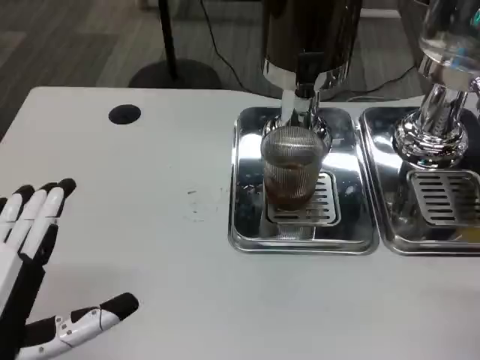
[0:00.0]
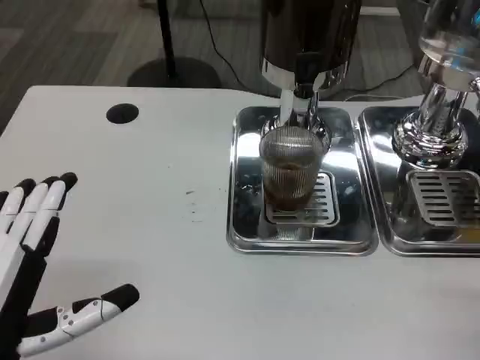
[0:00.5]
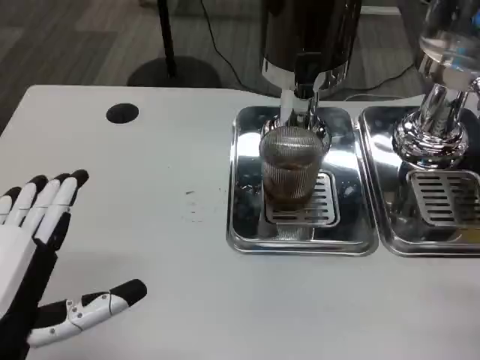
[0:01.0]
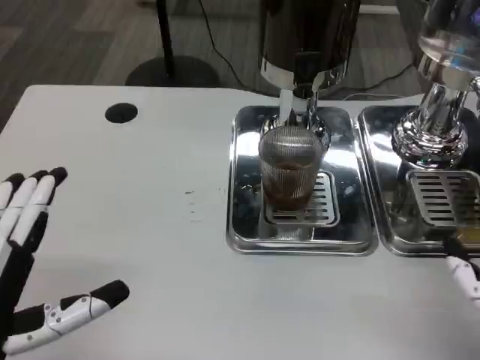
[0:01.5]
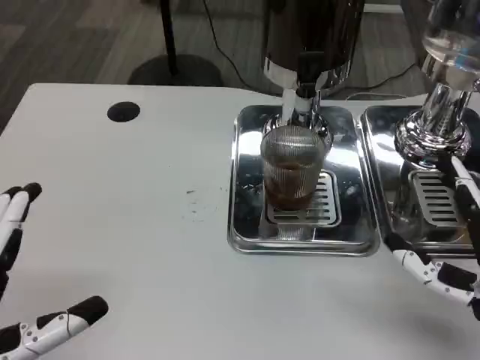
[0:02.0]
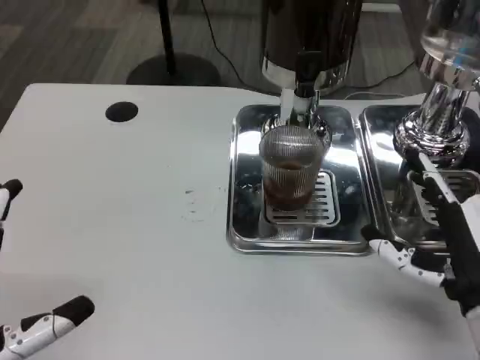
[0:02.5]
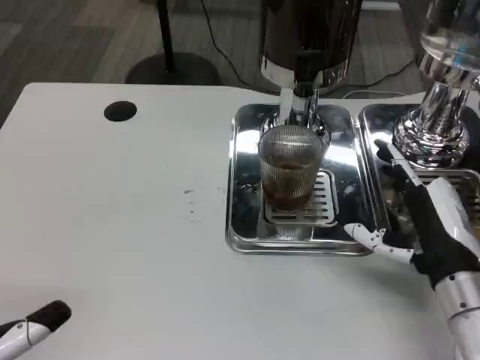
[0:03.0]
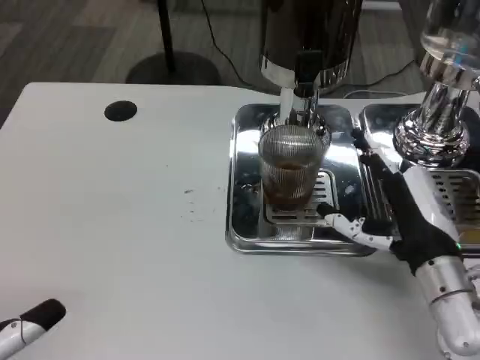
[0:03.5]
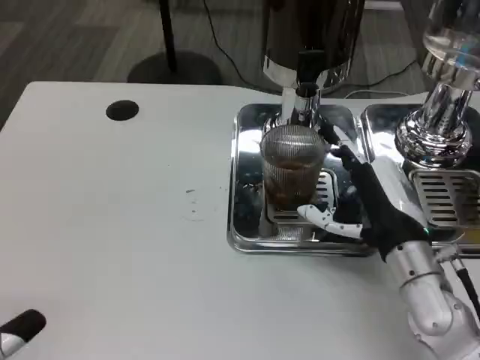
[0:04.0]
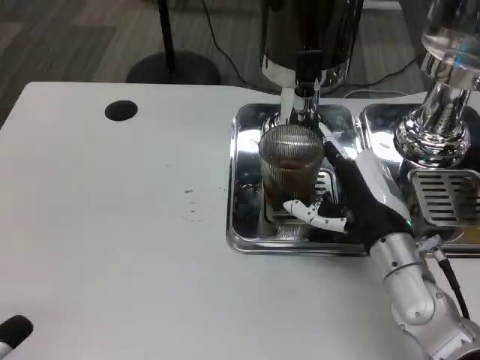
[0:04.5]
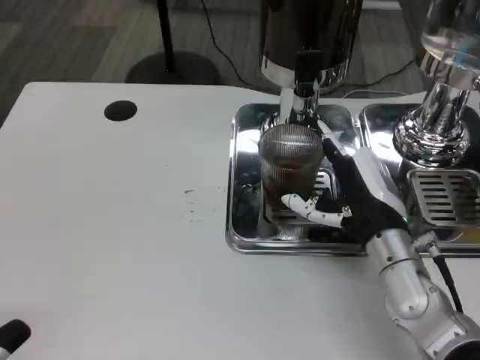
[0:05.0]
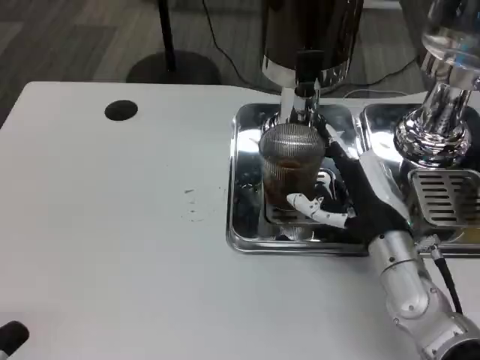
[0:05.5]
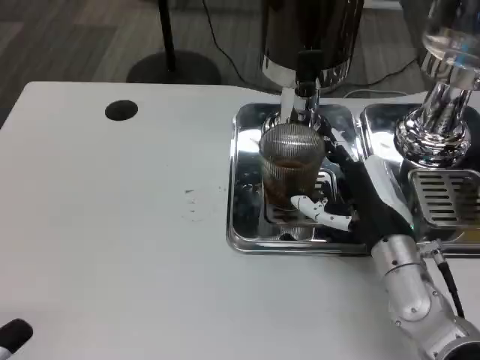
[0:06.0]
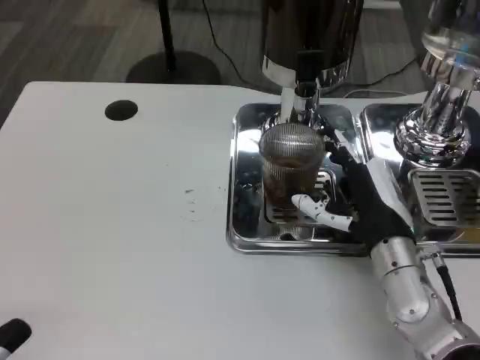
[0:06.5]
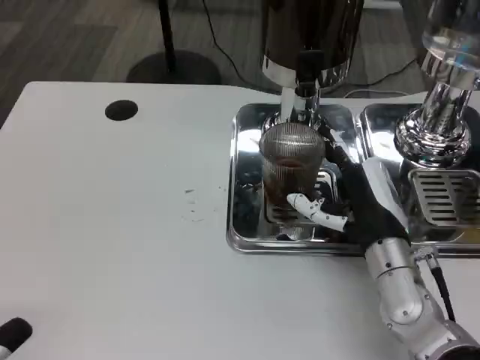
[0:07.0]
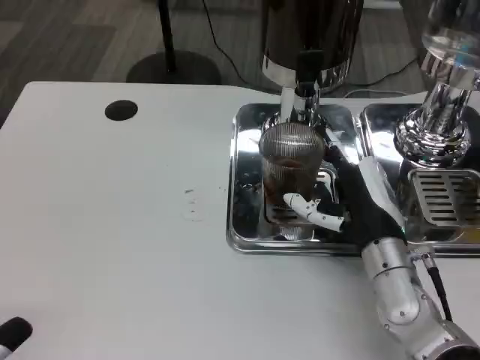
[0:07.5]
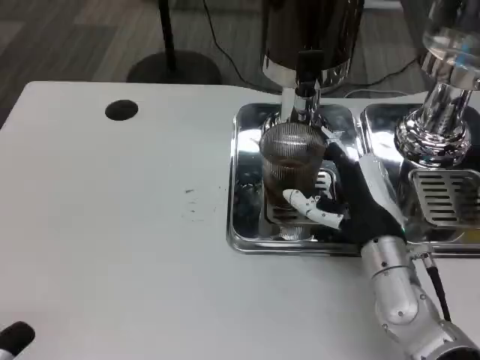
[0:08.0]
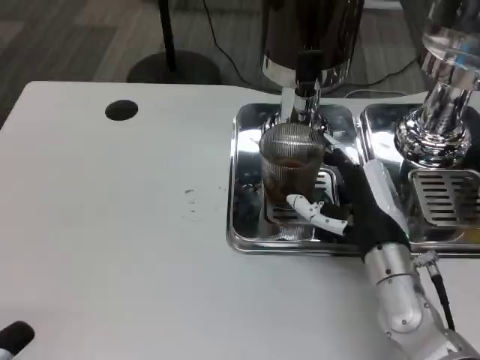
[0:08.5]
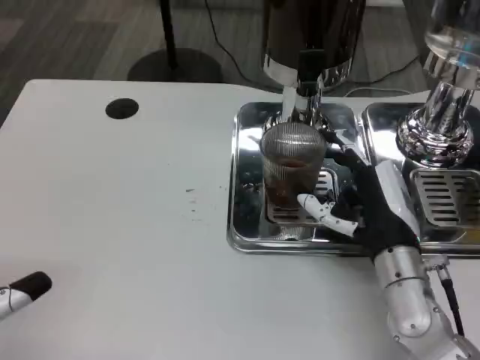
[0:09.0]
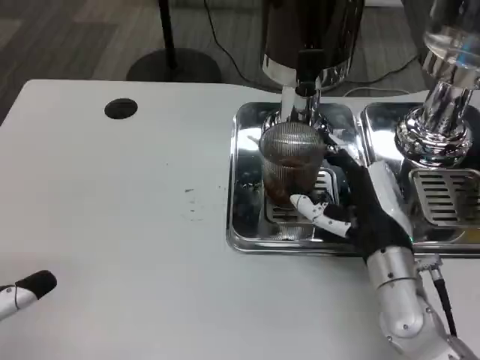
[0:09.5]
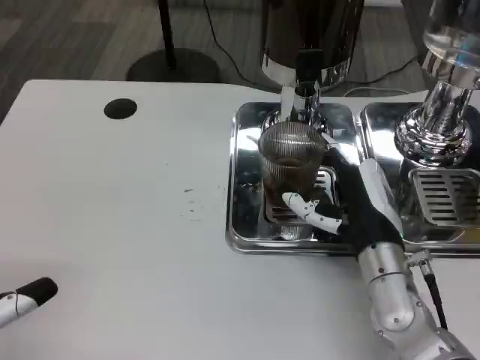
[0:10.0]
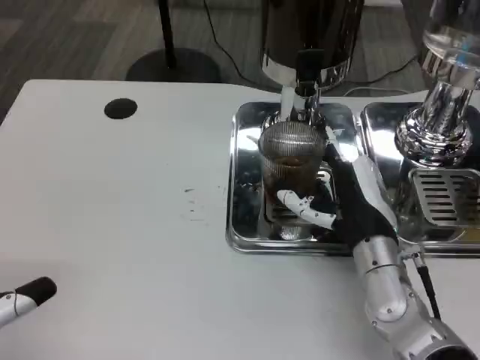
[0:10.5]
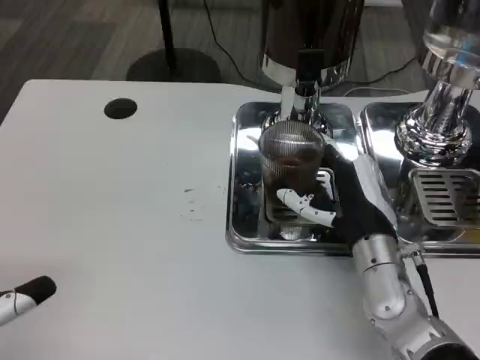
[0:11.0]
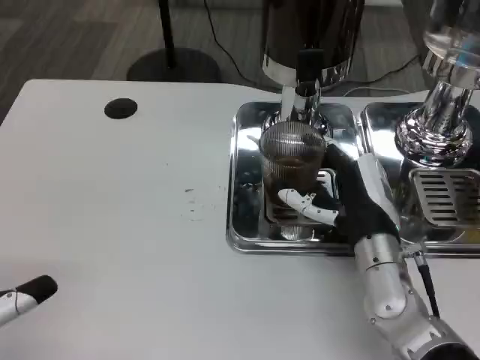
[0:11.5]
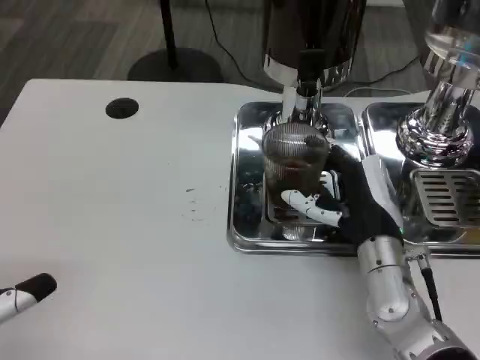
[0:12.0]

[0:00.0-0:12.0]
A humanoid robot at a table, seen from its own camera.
Task of the whole recording: Grasp the cup under the faucet to collect the drink, then remove the cup.
0:00.0 to 0:02.0: The right hand travels forward by about 10 cm.
0:02.0 to 0:04.0: The right hand goes roughly 10 cm forward and to the left.
0:04.0 to 0:08.0: The hands make only small movements.
0:08.0 to 0:10.0: The left hand shifts some 5 cm forward.
0:10.0 to 0:12.0: Both hands stay about where they are.

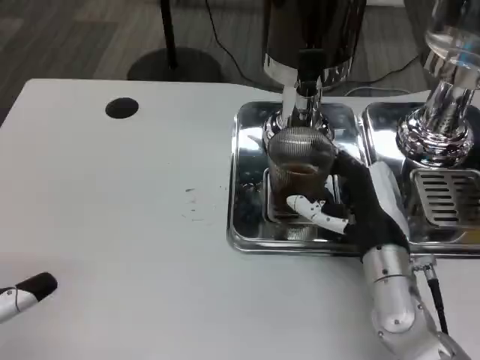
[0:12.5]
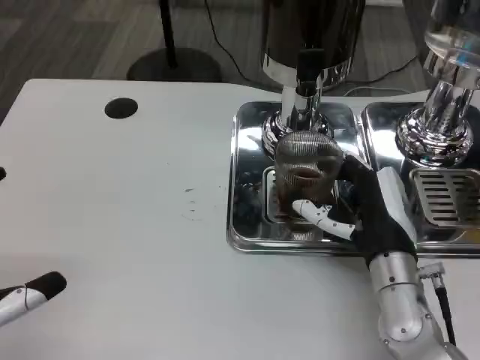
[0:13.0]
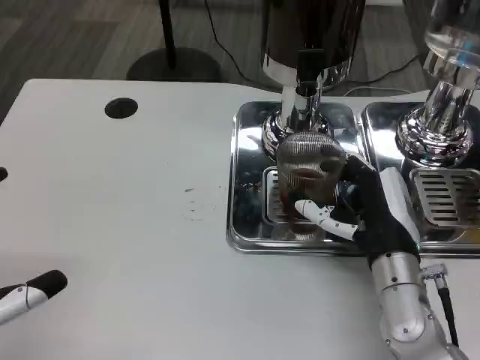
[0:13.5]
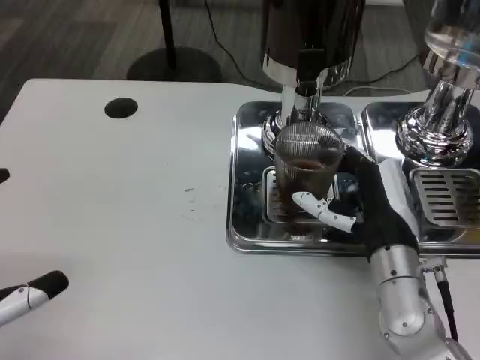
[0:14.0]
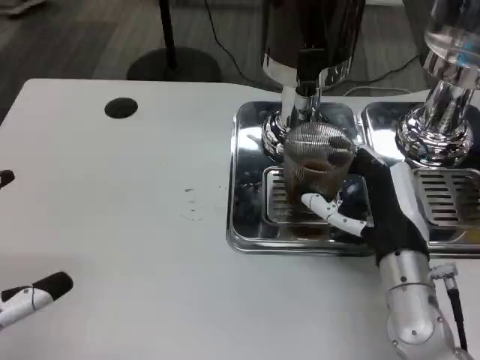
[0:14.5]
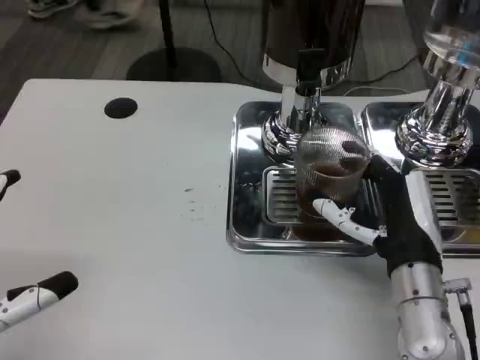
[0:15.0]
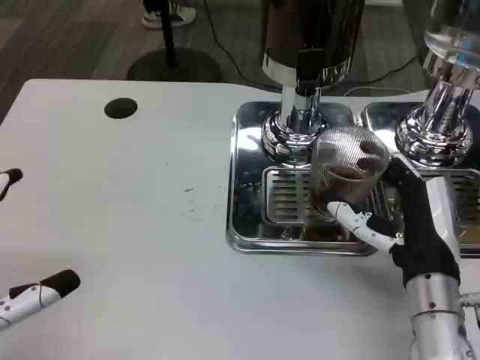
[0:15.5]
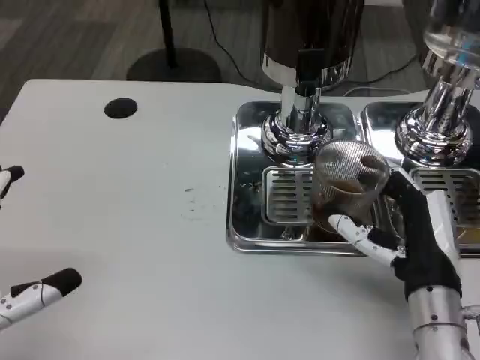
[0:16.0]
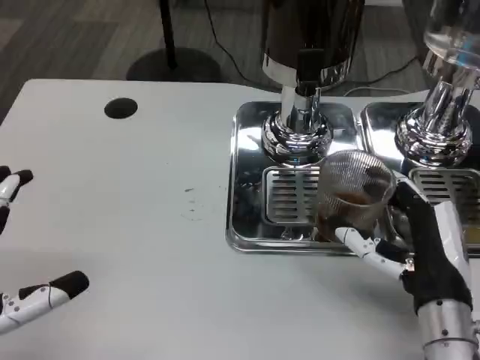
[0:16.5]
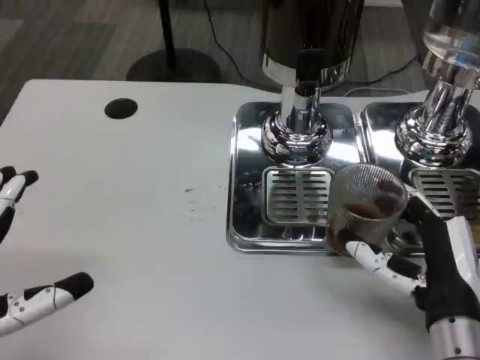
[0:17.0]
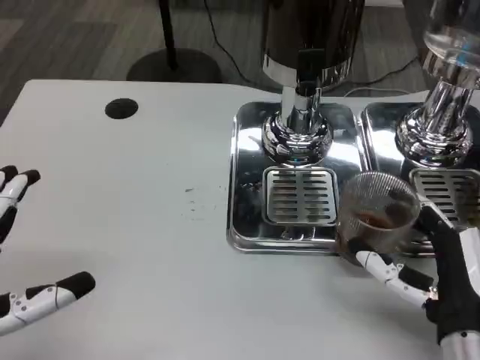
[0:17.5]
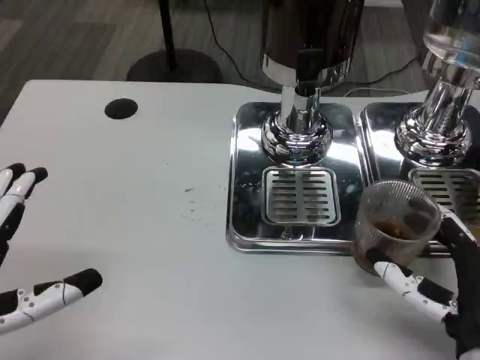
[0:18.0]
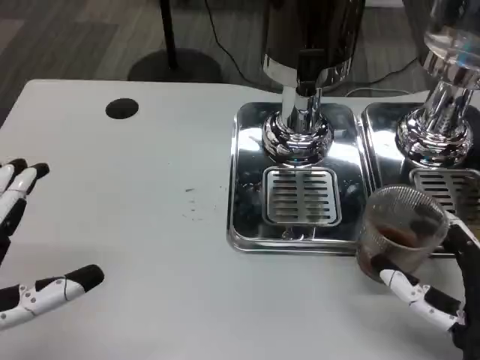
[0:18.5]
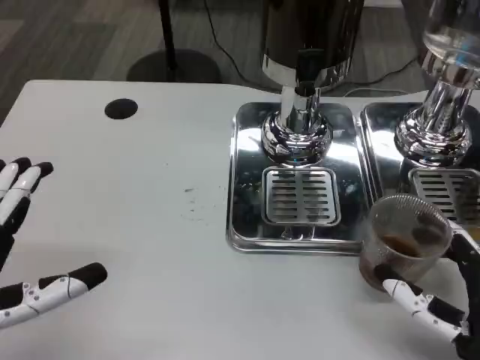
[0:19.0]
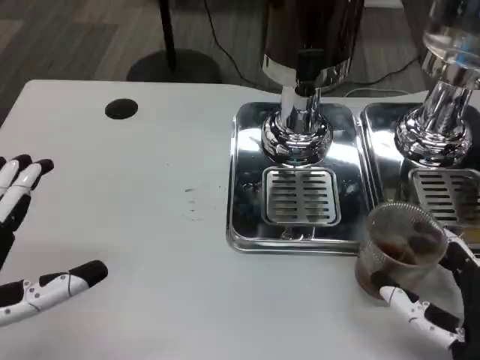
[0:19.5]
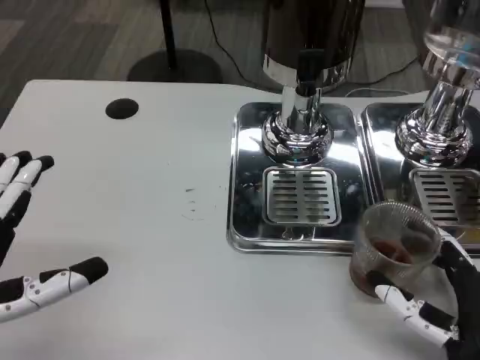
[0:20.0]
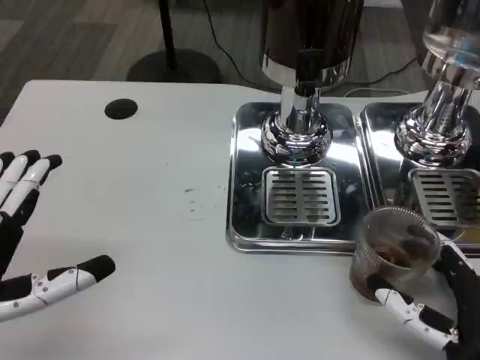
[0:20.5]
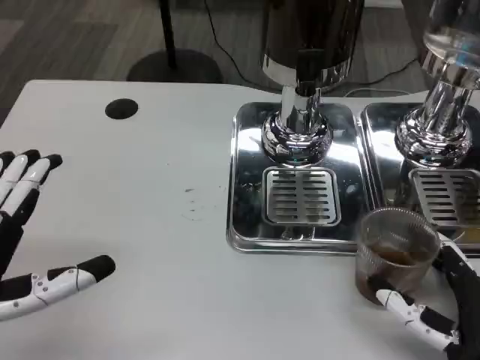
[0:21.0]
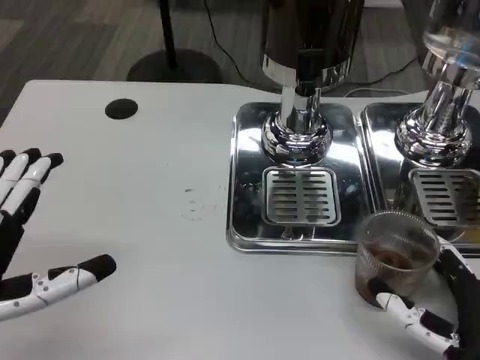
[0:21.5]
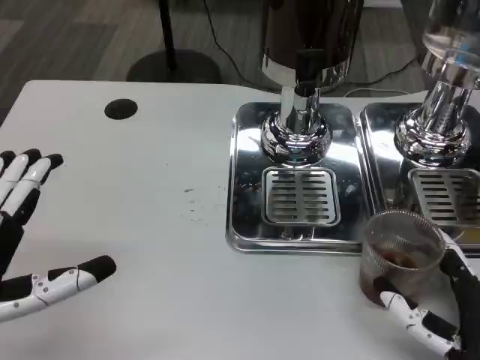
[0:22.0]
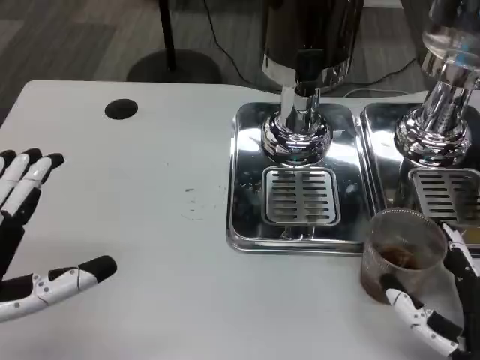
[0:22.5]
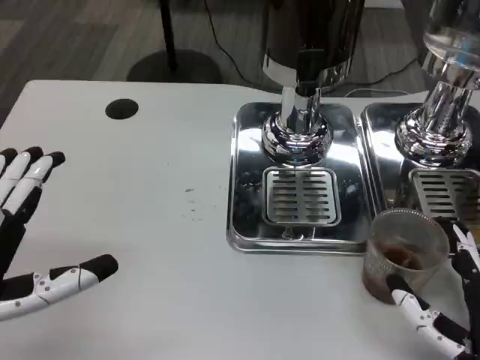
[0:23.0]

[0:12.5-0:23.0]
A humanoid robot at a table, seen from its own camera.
Task of the whole recording: Grasp the cup under the faucet to collect the drink, then remove the cup.
0:12.5 to 0:14.5: The hands move only a little.
0:14.5 to 0:16.5: The right hand is displaced backward by approximately 5 cm.
0:16.5 to 0:19.0: The right hand shifts some 5 cm backward.
0:19.0 to 0:21.0: There are only small adjustments of the hands.
0:21.0 to 0:23.0: Neither hand changes place.

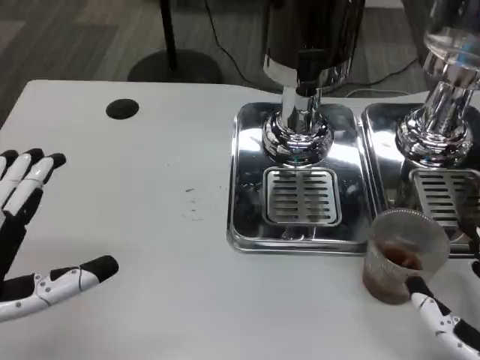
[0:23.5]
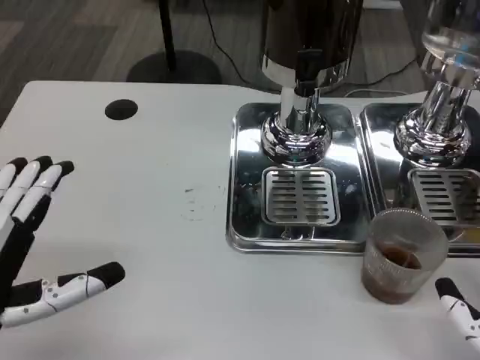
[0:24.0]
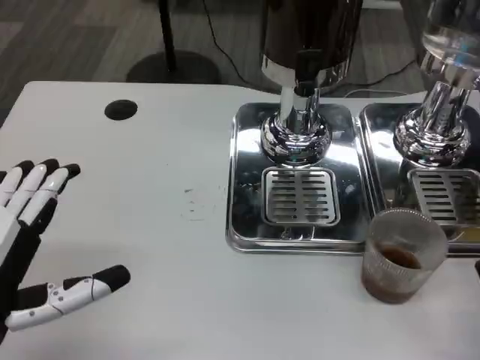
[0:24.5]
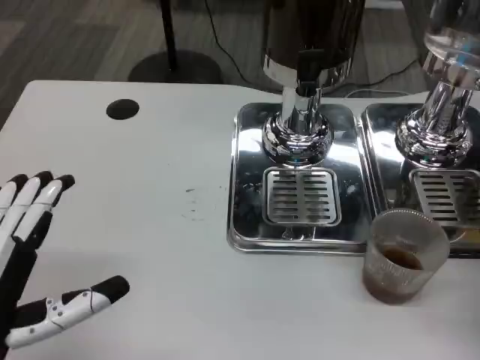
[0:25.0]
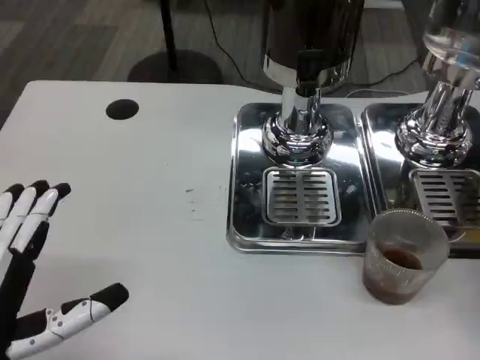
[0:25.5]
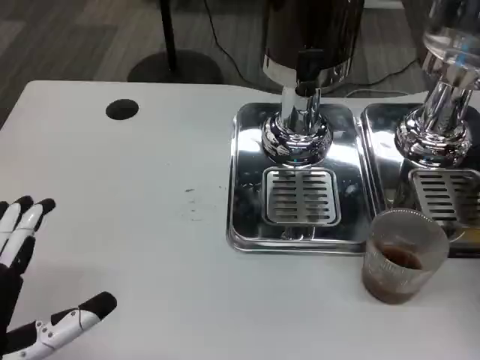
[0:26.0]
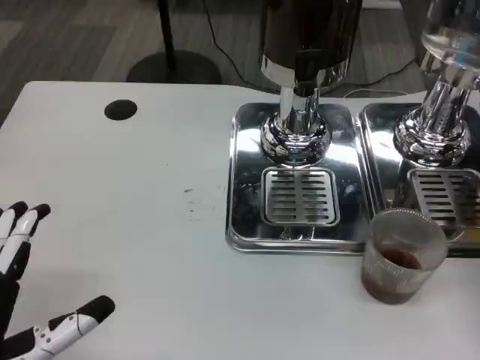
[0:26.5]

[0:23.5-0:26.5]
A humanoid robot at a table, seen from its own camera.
Task of the whole recording: Grasp the cup under the faucet to collect the drink, then remove the cup.
0:23.5 to 0:25.0: The right hand heads to the right and upward, covering roughly 10 cm.
